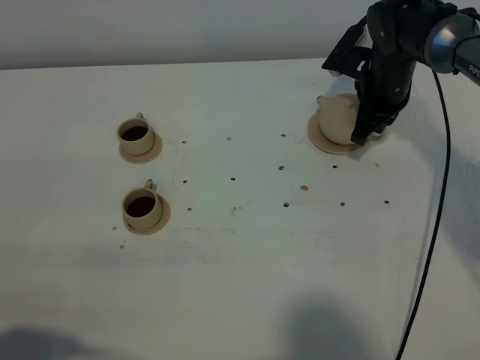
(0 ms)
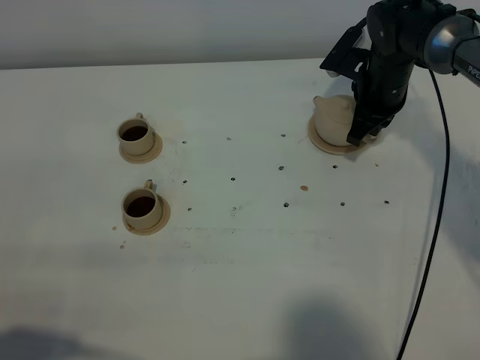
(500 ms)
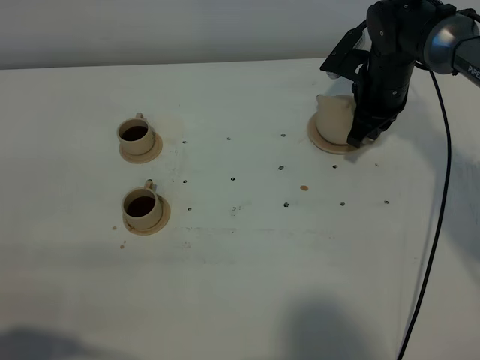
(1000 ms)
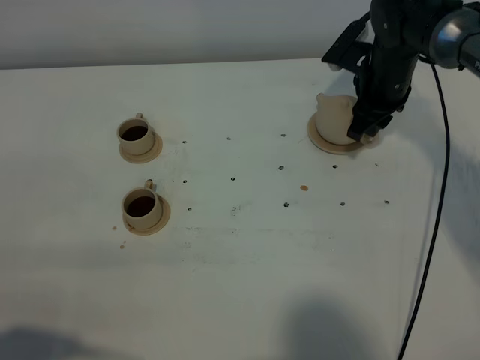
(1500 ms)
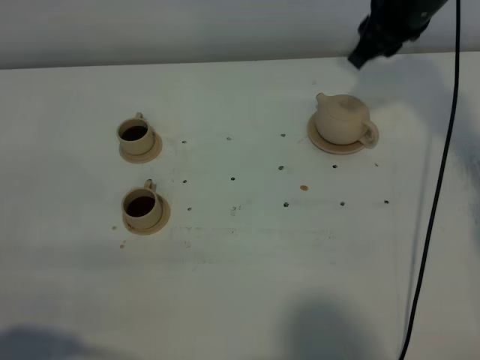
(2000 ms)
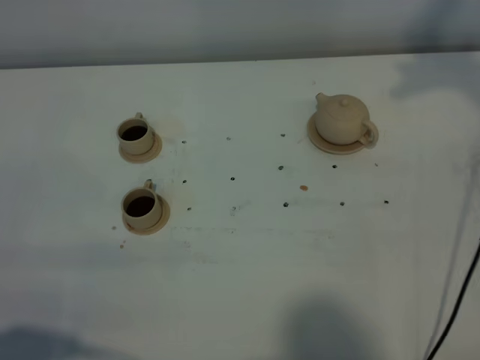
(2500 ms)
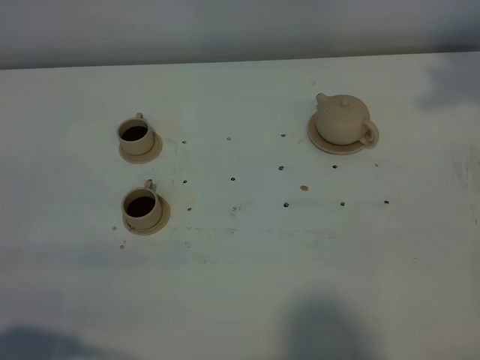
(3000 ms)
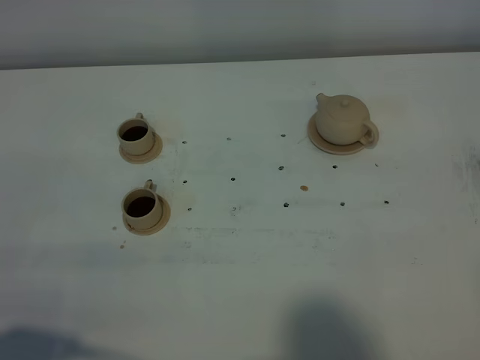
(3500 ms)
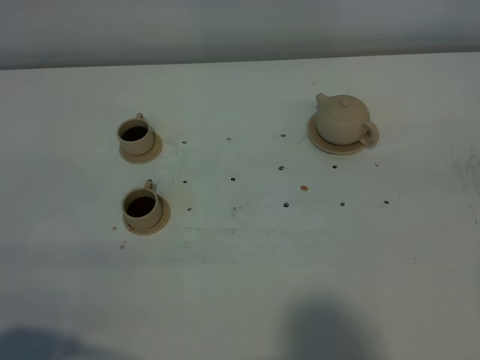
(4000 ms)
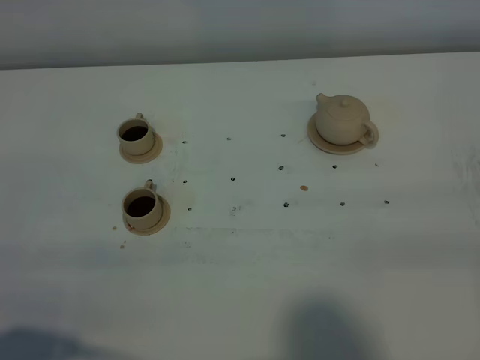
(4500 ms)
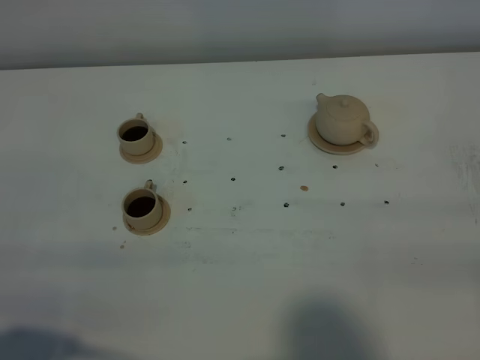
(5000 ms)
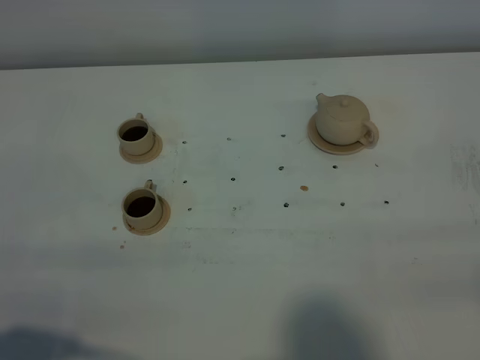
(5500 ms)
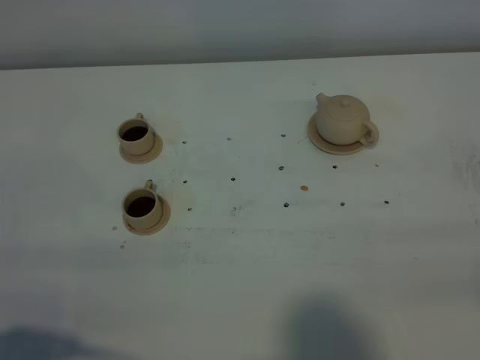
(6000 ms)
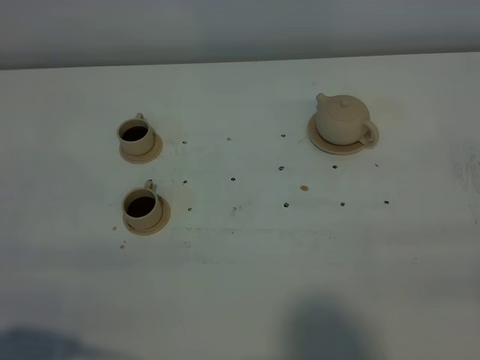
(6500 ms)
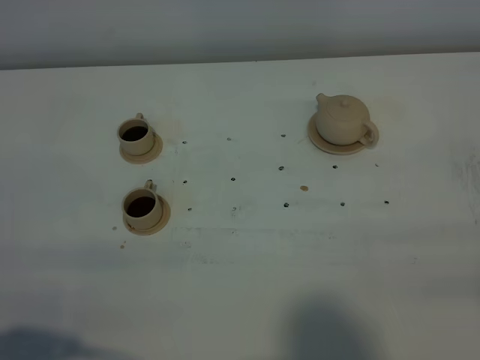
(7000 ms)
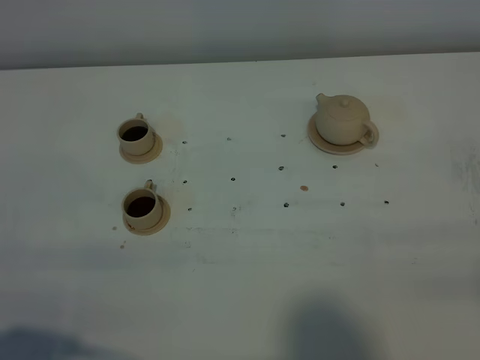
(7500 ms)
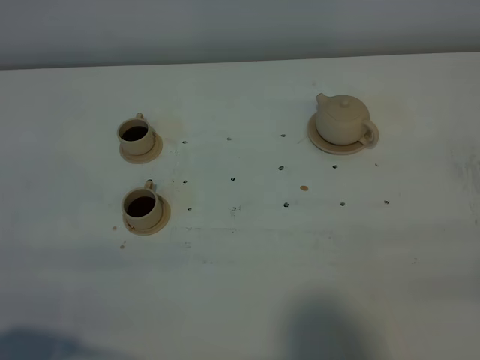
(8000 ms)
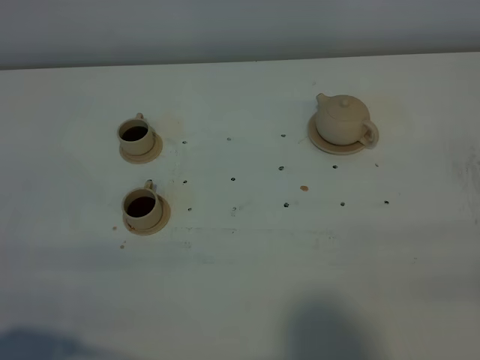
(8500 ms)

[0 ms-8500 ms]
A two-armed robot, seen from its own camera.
Task of the whole recording: grasp the brown teapot and pour the tea into the two brown teacups one by one, put the brown teapot back in its original place.
0 ms to 2000 ms: The right gripper travels upward by about 15 cm, and opens its fingers.
2000 ms to 4000 ms: The right gripper is displaced backward by approximately 35 cm.
6500 ms to 8500 ms: Both grippers stay put.
